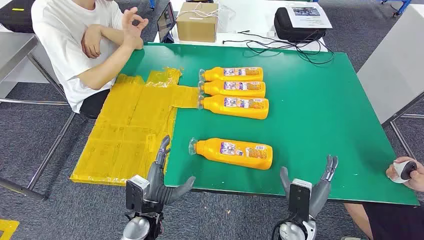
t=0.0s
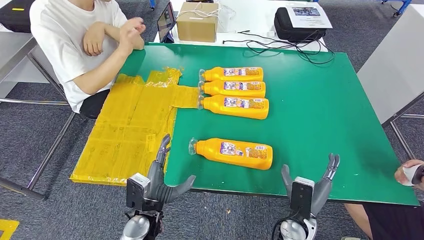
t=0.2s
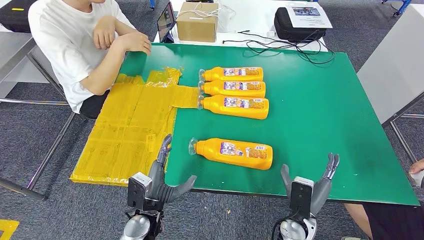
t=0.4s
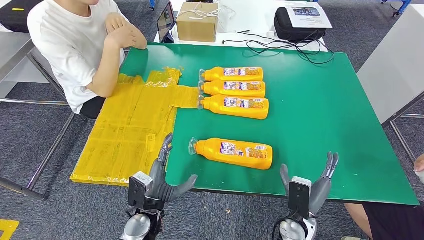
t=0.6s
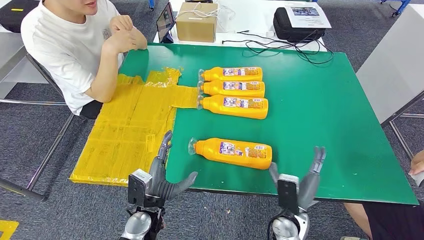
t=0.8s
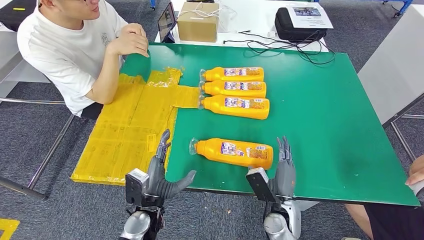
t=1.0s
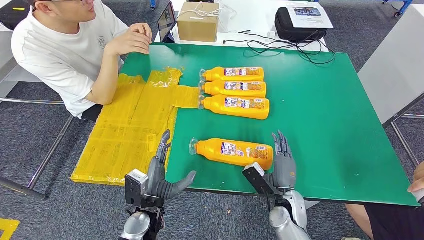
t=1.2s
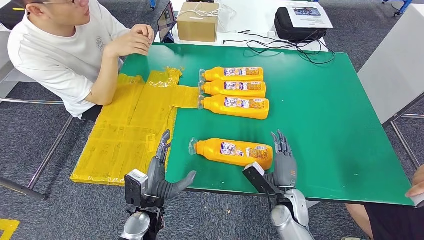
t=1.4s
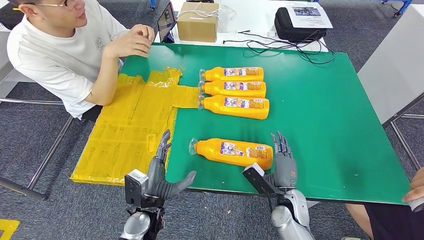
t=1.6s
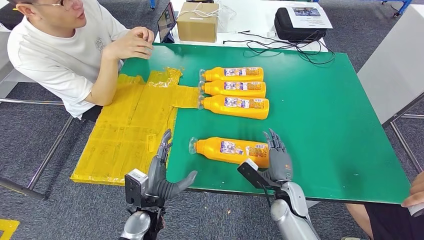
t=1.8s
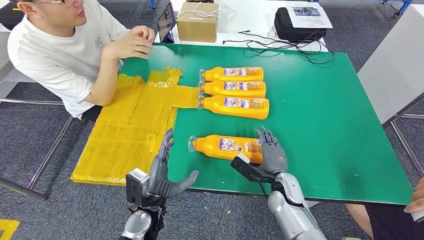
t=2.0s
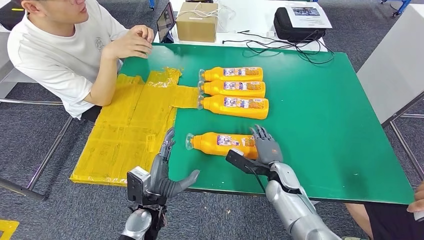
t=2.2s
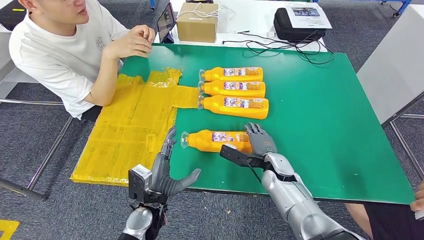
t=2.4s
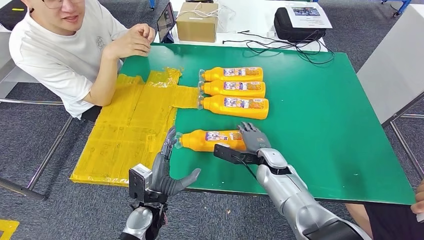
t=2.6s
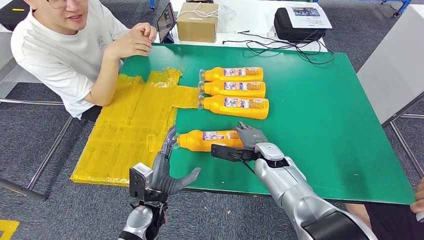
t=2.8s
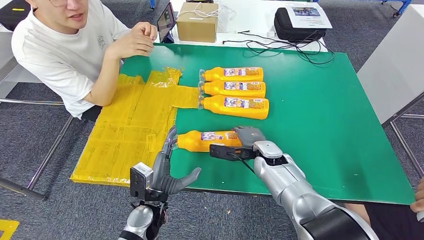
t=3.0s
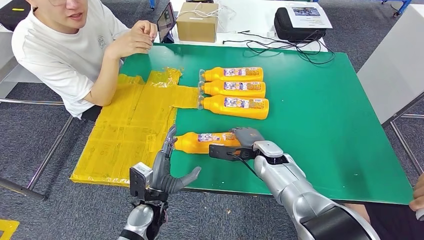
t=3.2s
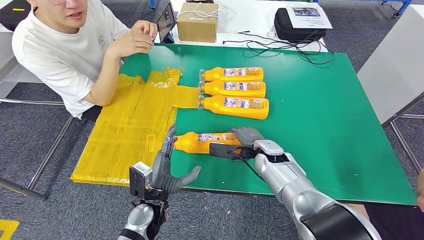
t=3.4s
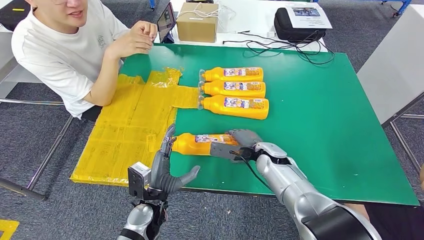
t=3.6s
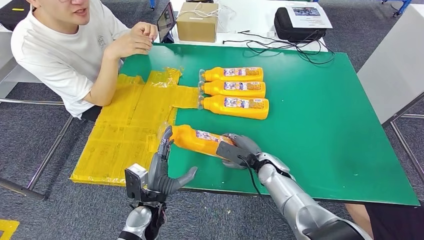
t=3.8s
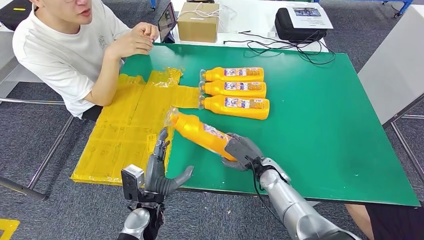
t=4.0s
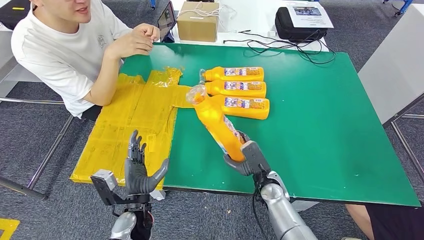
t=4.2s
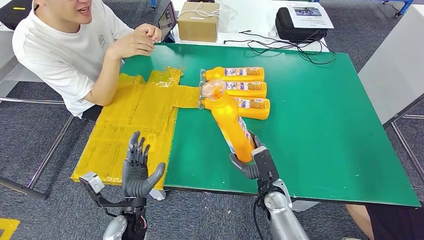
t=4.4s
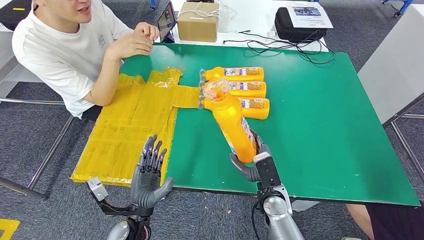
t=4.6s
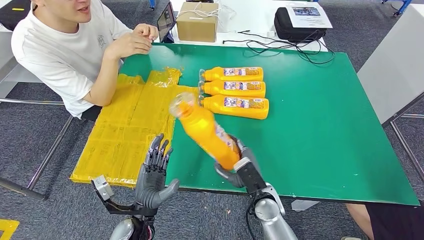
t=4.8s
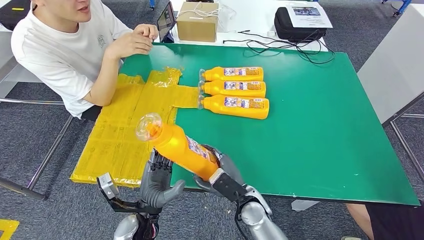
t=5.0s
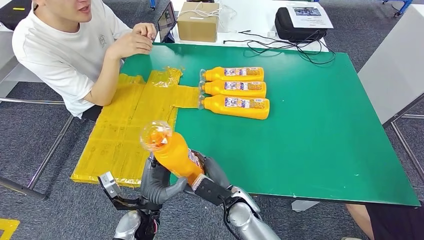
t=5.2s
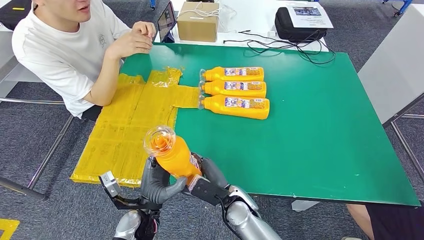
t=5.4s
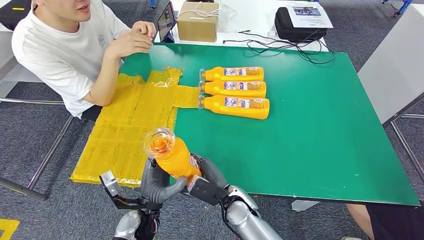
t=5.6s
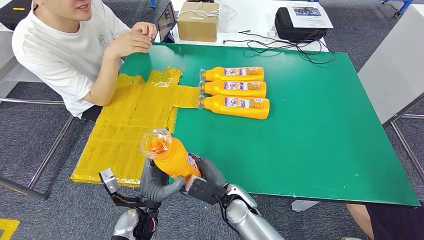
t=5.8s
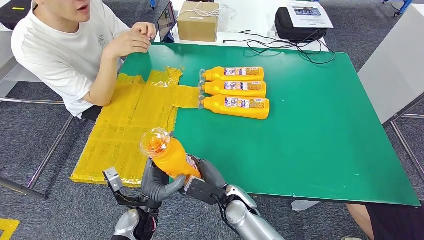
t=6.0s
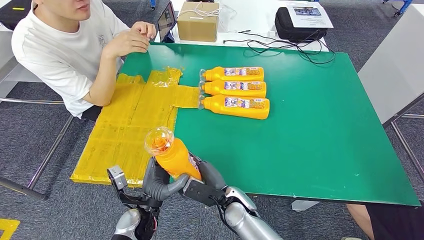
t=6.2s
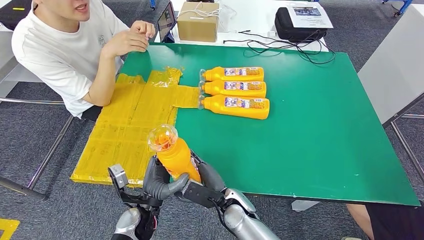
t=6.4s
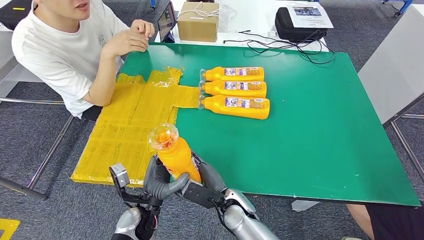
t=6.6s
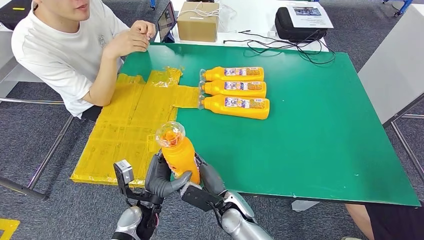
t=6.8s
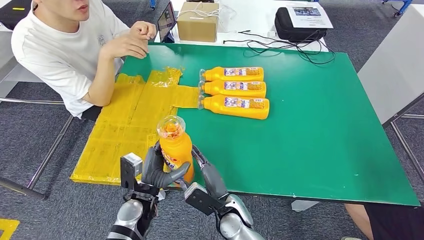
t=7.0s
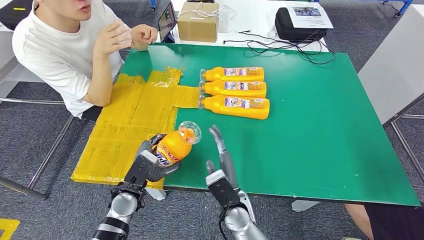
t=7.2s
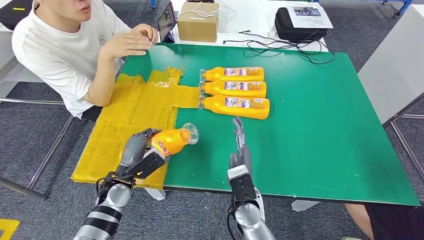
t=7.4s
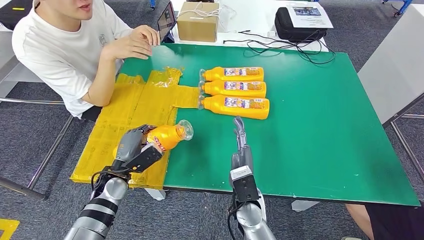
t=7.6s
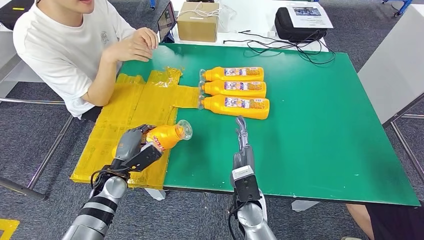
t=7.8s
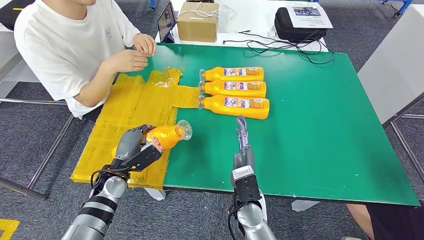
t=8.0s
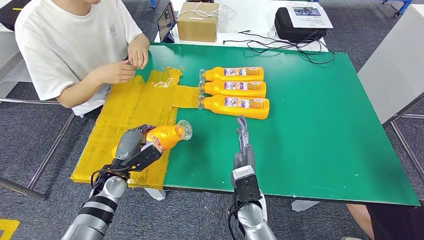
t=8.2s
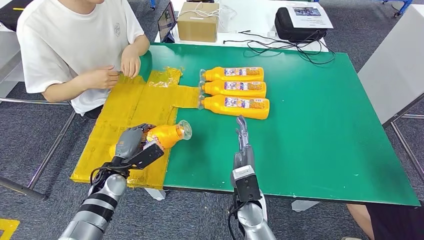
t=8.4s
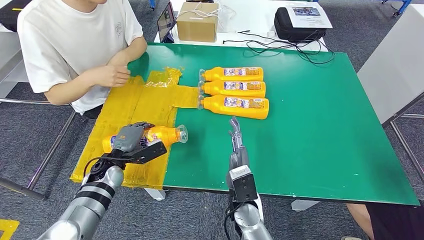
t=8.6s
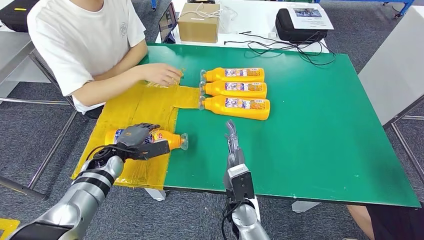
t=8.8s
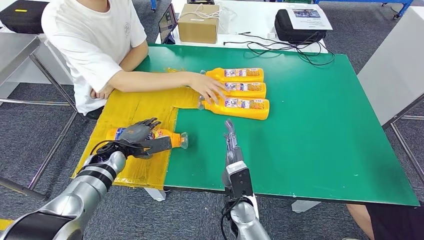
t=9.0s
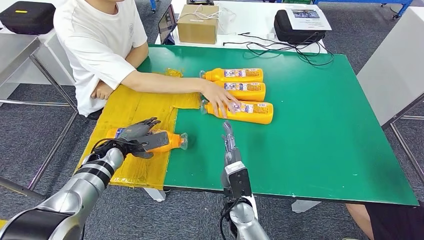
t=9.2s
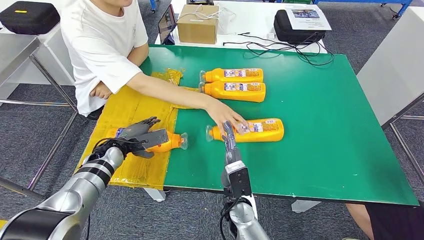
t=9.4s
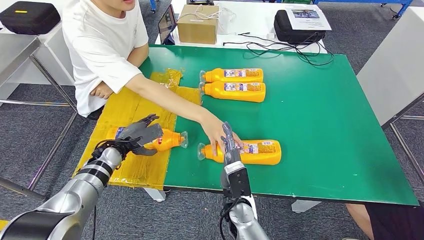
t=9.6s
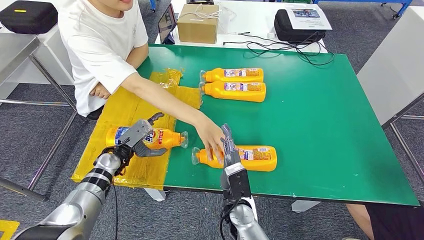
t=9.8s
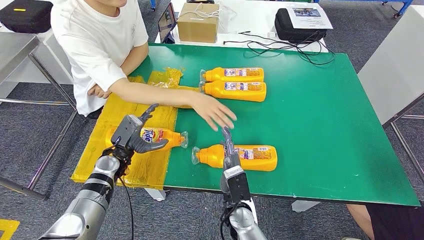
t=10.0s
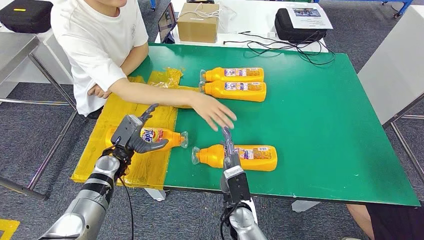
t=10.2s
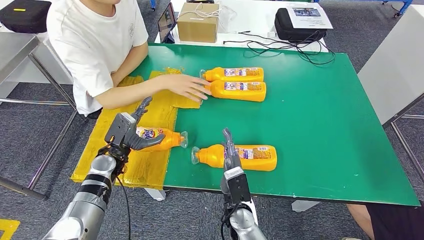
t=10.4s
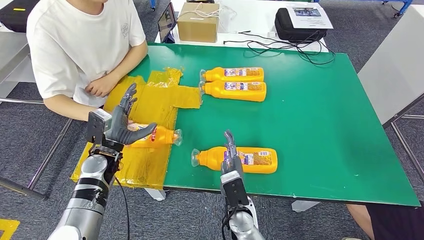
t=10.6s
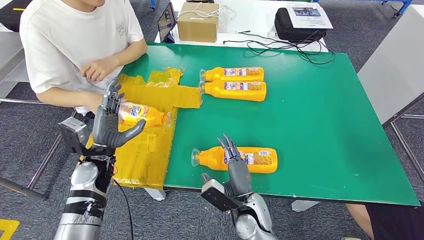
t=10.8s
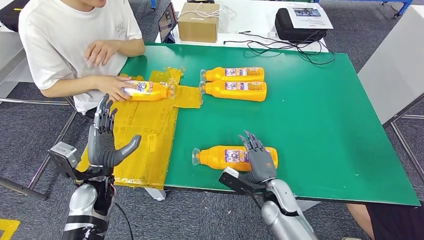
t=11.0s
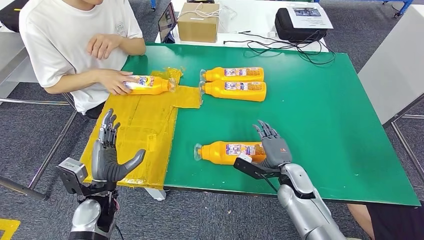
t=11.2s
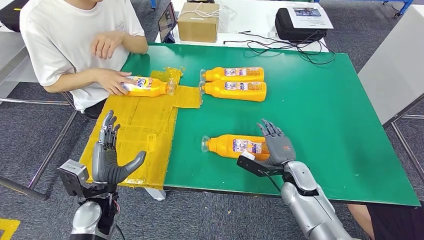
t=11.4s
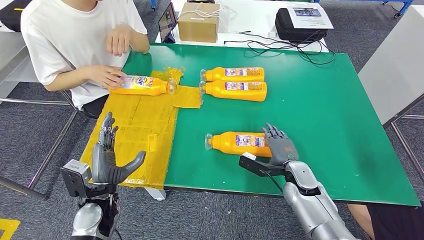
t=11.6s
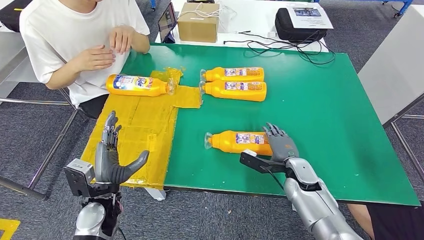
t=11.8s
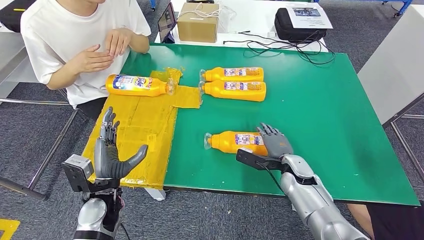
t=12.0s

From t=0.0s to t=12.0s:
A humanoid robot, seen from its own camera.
Step, from t=0.0s to t=5.6s: Take the bottle from the table.
Step, from t=6.0s to t=8.8s: Flip the bottle to face forward.
From t=1.6s to t=3.0s: The right hand goes about 15 cm forward, upward and to the left.
From t=3.0s to t=4.4s: The right hand moves backward and downward, about 10 cm.
From t=4.4s to t=6.0s: The right hand shifts roughly 10 cm to the left.
From t=6.0s to t=7.6s: The left hand travels to the left and forward by approximately 15 cm.

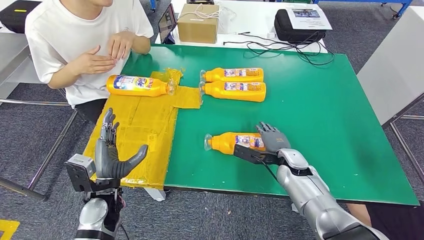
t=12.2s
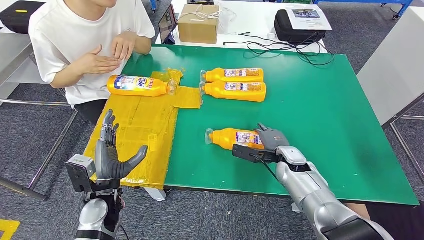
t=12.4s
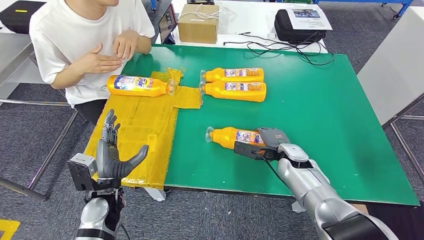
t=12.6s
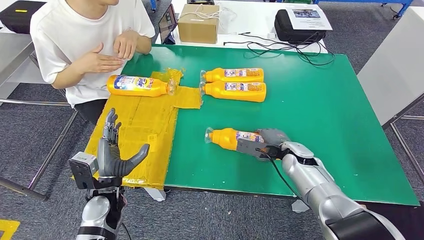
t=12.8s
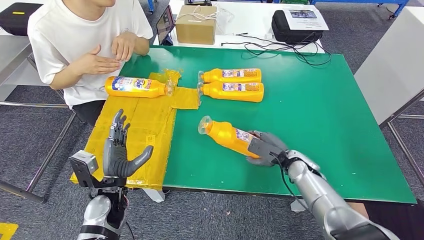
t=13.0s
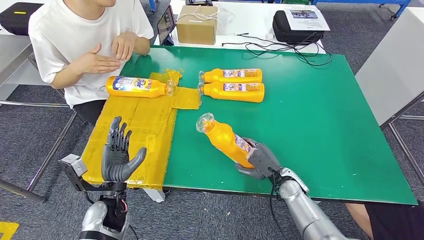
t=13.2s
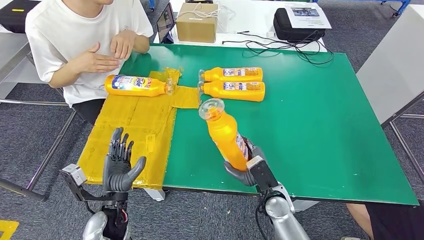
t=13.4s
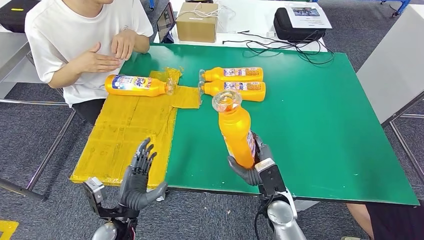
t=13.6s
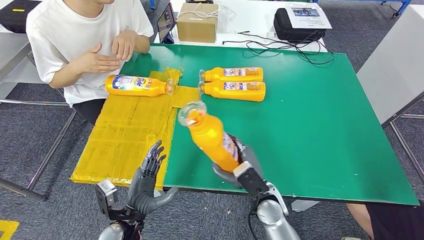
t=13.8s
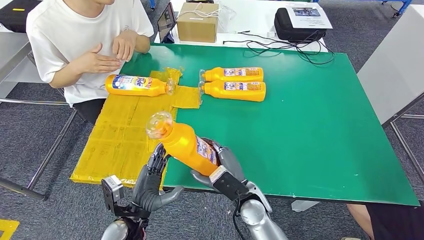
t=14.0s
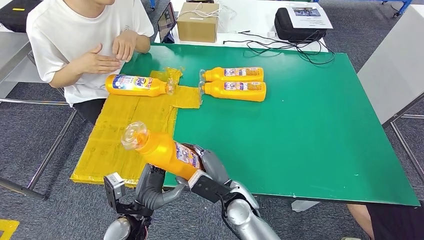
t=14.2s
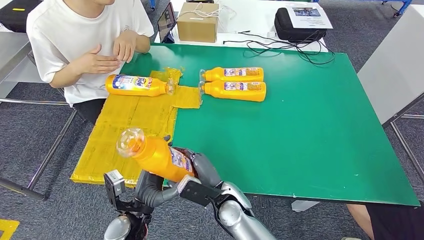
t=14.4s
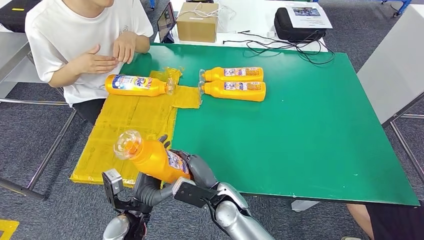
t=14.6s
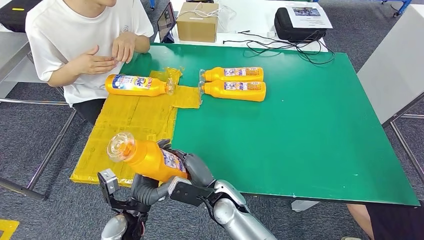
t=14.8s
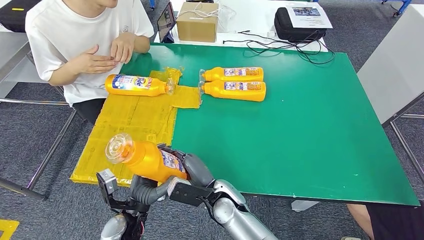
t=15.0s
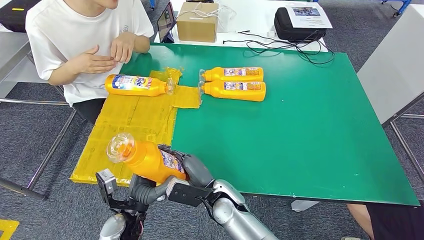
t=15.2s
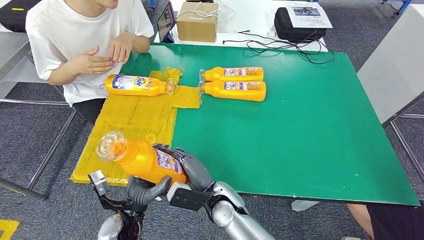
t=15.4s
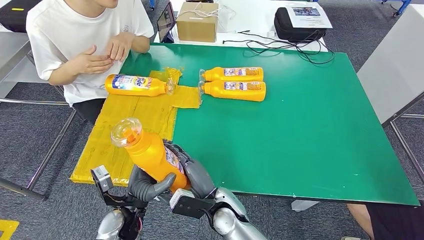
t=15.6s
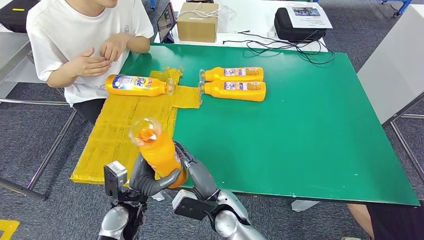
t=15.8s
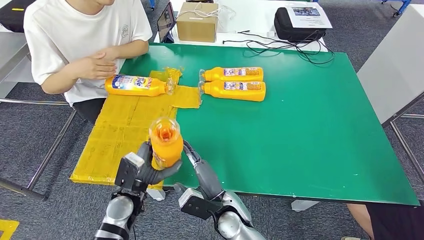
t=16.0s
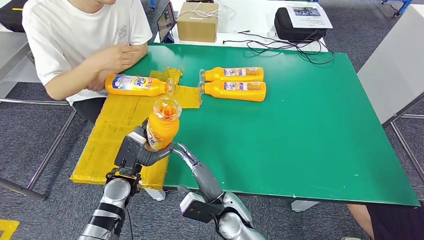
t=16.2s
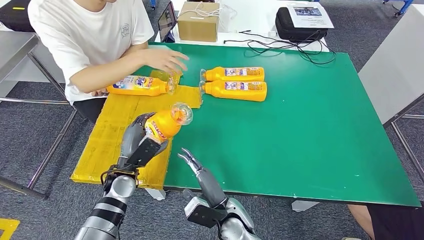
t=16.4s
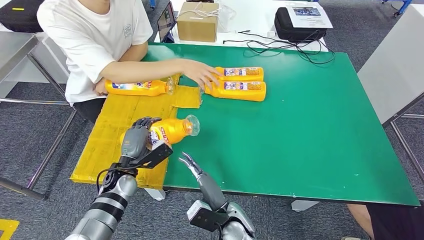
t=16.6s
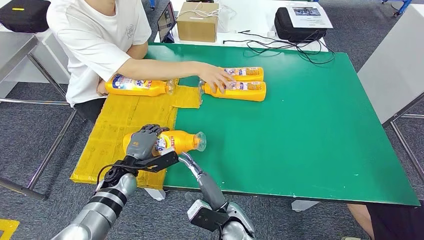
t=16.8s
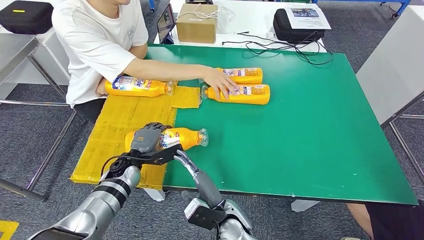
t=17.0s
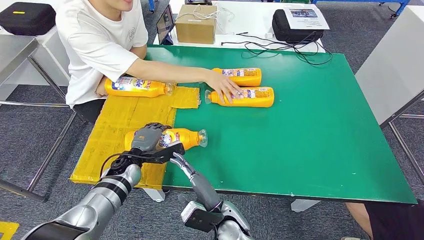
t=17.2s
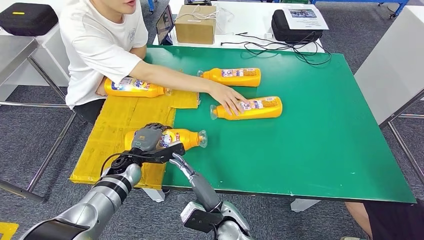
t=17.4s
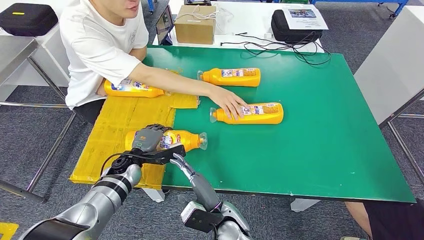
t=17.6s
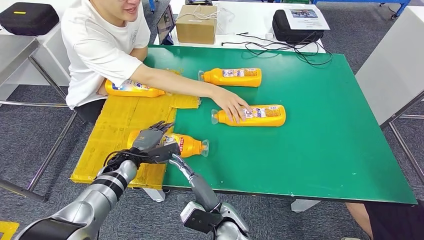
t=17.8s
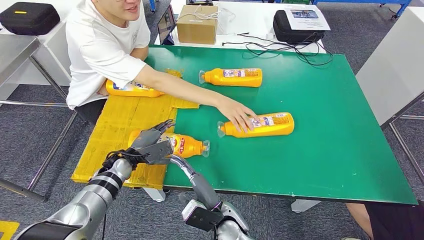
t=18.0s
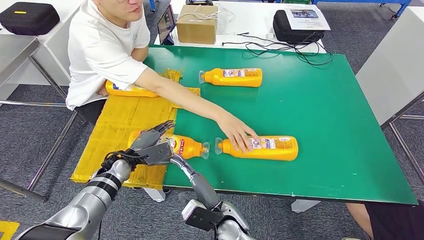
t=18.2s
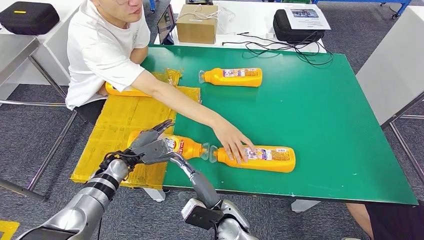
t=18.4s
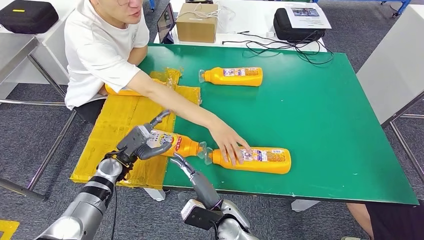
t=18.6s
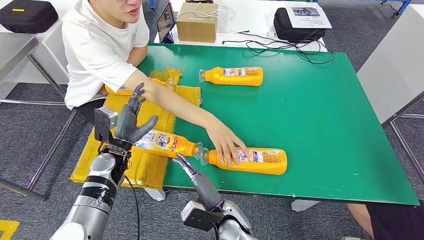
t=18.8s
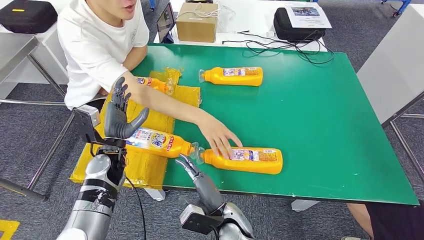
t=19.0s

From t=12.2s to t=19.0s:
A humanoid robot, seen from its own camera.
Step, from t=14.2s to t=17.0s: Flip the bottle to face forward.
From t=13.6s to t=15.0s: The right hand is displaced to the left by roughly 15 cm.
From t=15.0s to t=16.2s: The left hand travels forward by roughly 10 cm.
